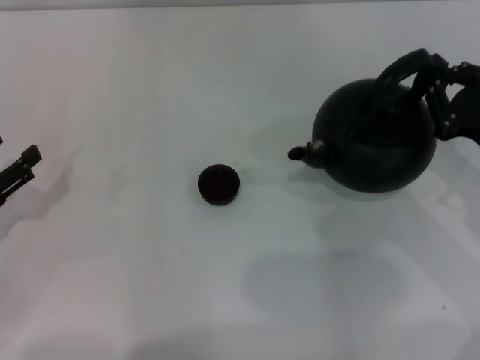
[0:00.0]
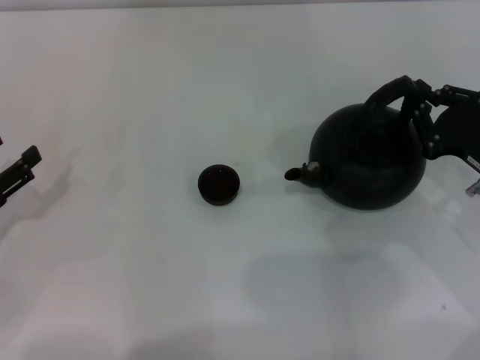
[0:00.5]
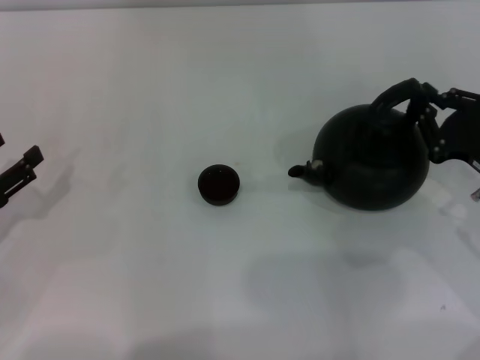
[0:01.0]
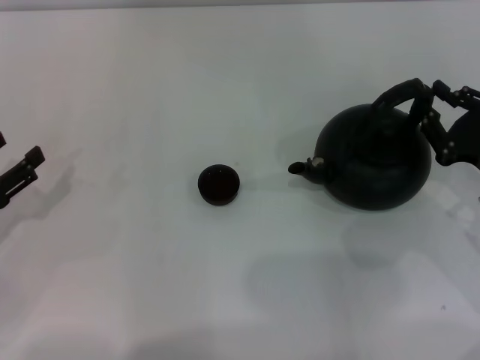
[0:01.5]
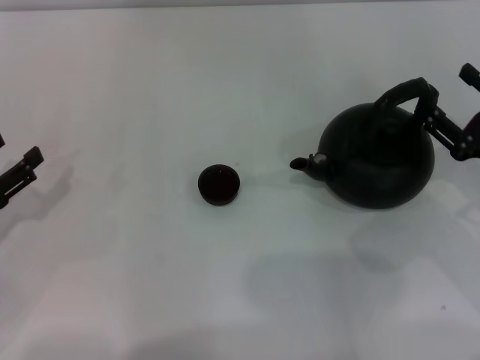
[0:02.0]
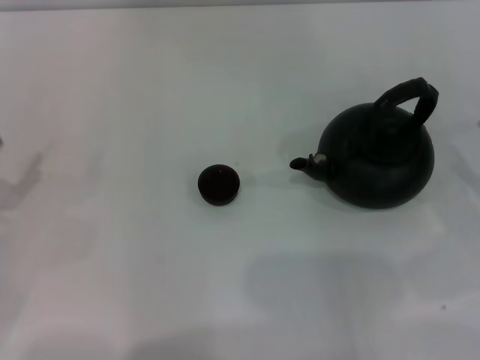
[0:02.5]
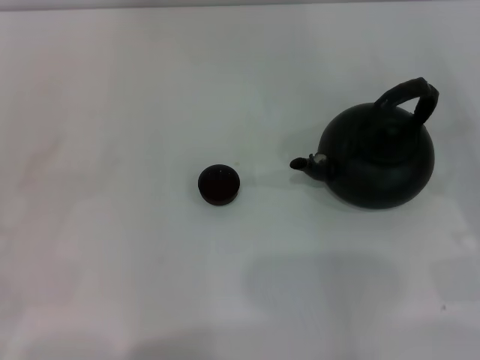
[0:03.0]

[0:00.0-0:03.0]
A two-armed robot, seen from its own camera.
Task of the whole recording: Grasp the handle of the teapot with one hand and pour tea into the teacup.
Step, 0:00.0 to 0:02.0: Put down the teapot with the right gripper.
0:00.0 to 0:01.5: The grippers make only small movements.
0:01.5 to 0:03.0: The right gripper shifts roughly 10 cm to the right and backward, and opens up; the left gripper shifts by approximately 5 cm.
